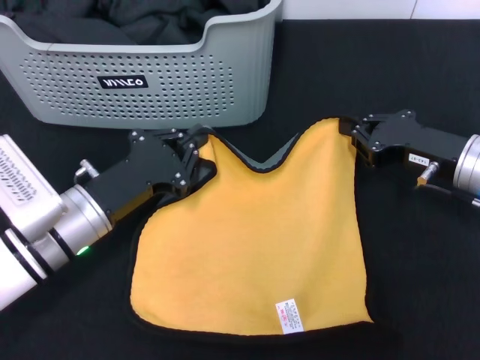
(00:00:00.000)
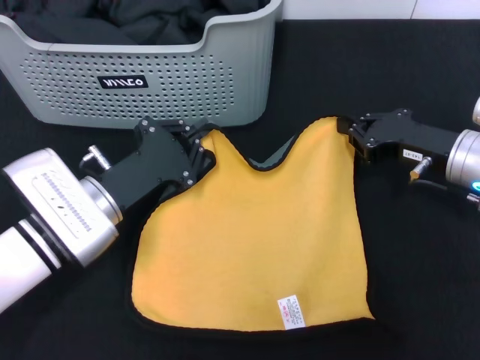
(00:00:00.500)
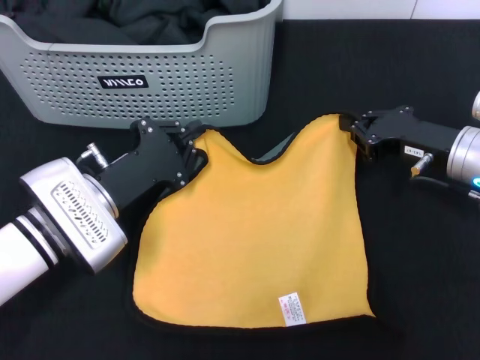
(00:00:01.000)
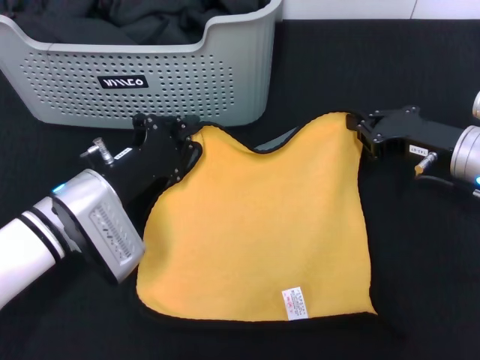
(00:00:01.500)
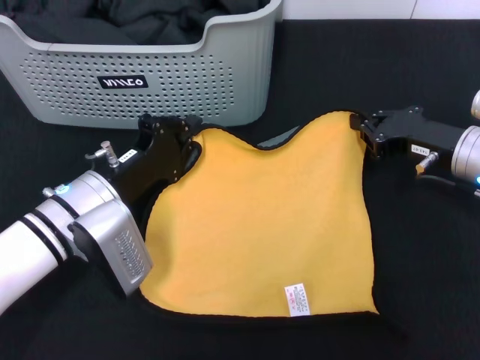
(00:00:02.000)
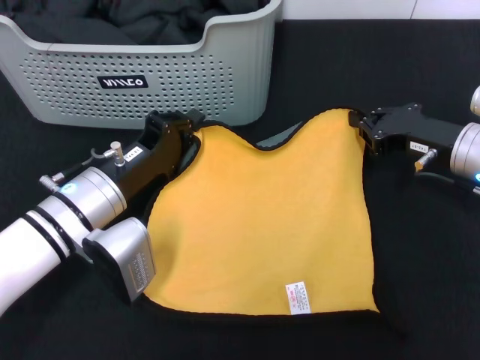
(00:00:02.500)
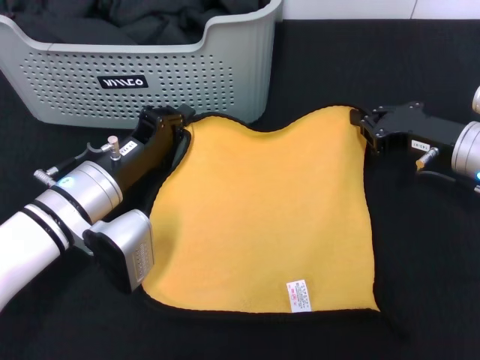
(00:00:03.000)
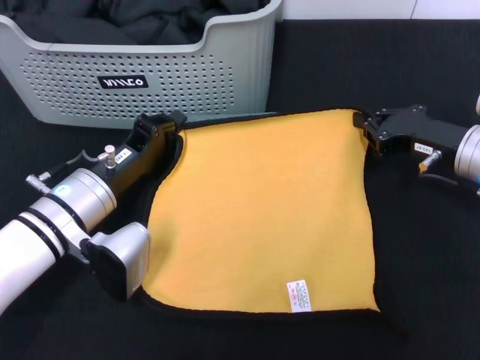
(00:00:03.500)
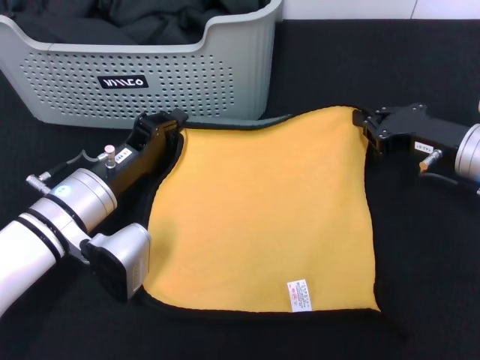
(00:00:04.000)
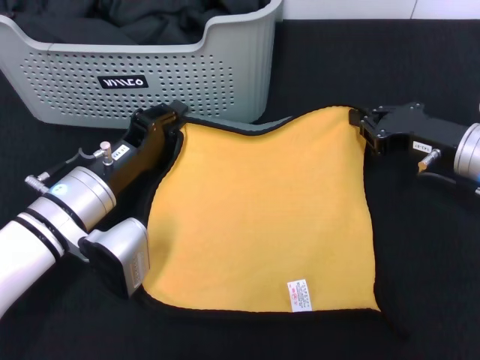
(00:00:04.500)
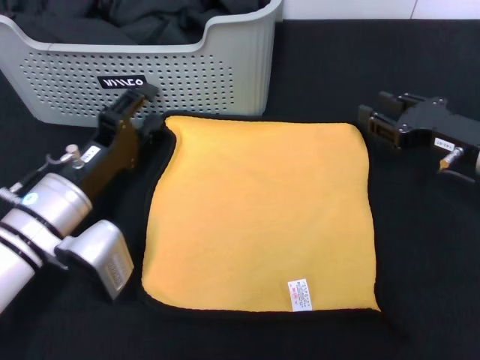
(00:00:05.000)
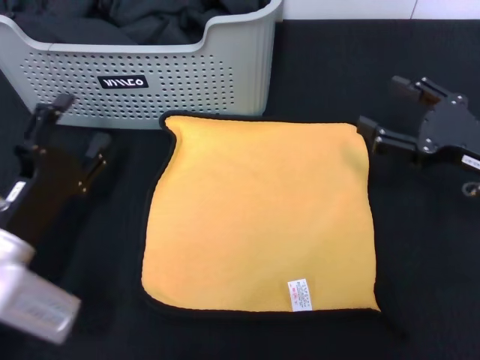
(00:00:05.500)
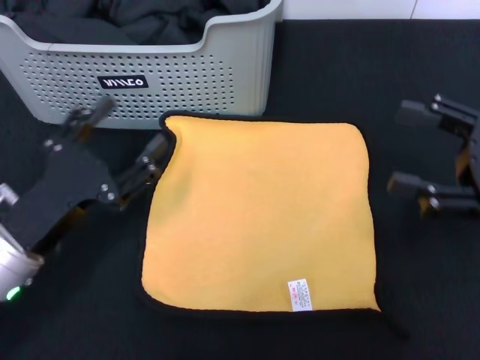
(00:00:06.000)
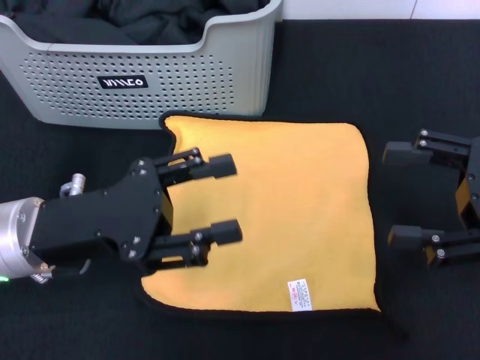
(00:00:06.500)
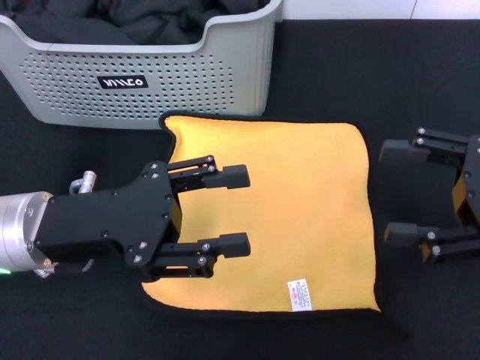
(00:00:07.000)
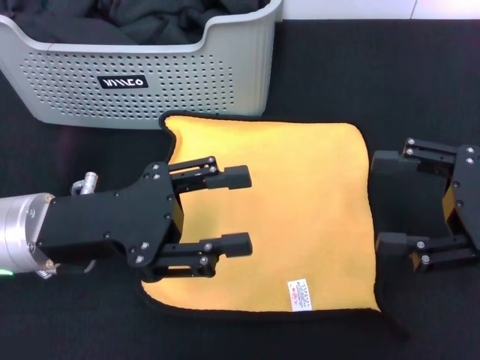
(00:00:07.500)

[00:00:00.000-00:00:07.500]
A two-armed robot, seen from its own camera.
Task of the whole recording: pick up the towel from the storage box and lay it flat on the black tablecloth.
Step, 00:00:00.000 to 00:00:04.500: Spread the towel flat with the right gripper.
00:00:04.000 to 00:00:05.500: The left gripper moves backward and to the left, some 10 cm, and opens up. Meanwhile the right gripper moves about 5 cm, and opens up.
00:00:05.500 to 00:00:07.500: The left gripper travels upward by some 10 cm; the right gripper travels upward and backward by roughly 10 cm.
